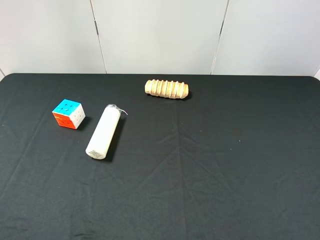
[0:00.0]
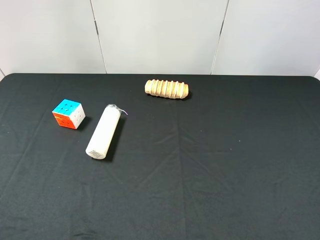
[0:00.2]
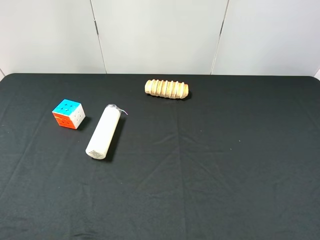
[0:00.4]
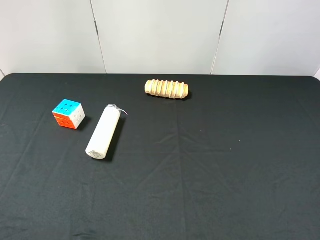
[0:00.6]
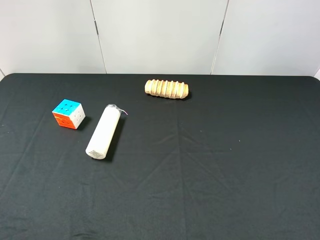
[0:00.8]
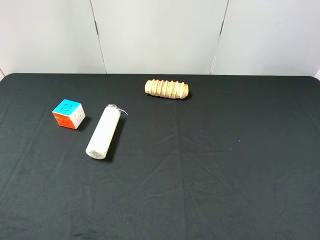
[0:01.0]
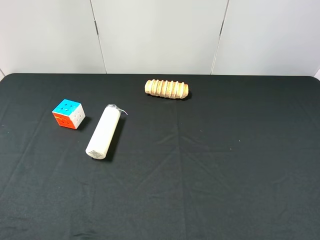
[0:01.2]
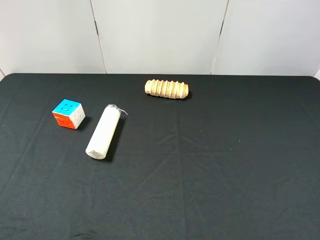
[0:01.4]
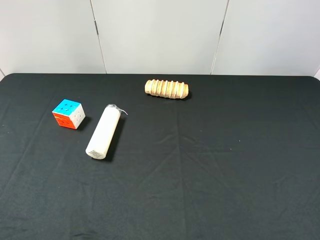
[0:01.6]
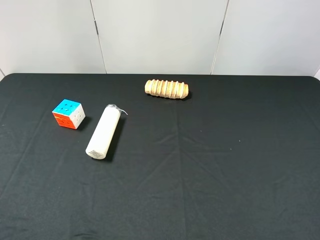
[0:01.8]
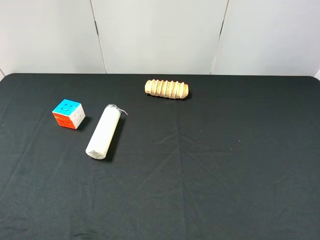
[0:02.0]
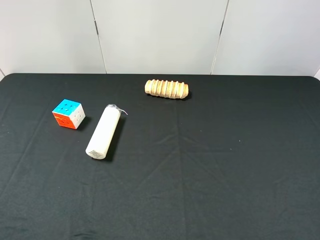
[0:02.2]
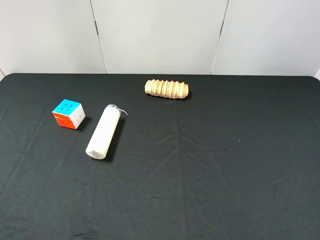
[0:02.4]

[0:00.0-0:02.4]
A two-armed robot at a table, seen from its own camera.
Task of the whole recording: use the right gripper to pick up the item and transfer it from the right gripper to the left gripper.
0:01.2 to 0:02.4: Both grippers stay put.
